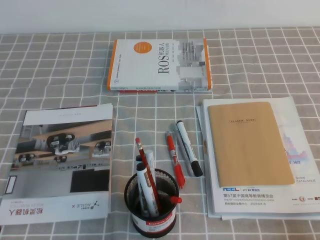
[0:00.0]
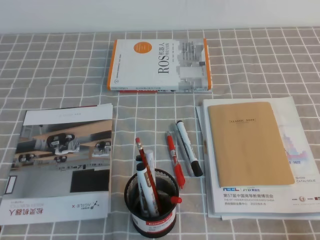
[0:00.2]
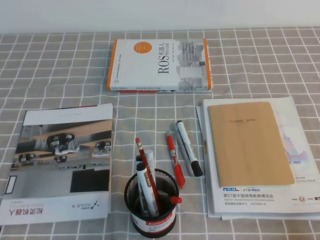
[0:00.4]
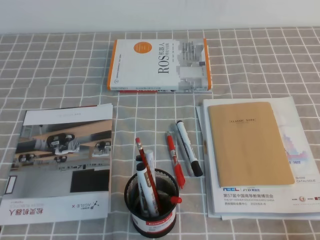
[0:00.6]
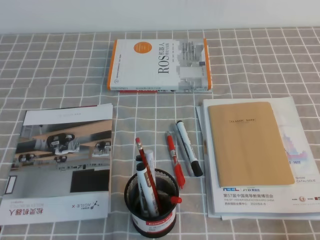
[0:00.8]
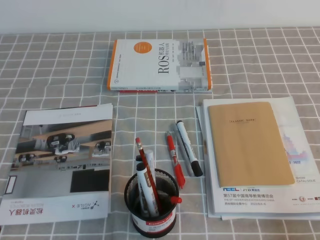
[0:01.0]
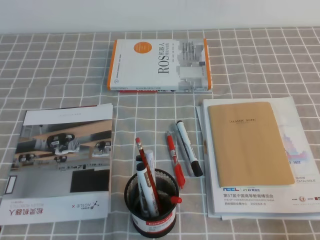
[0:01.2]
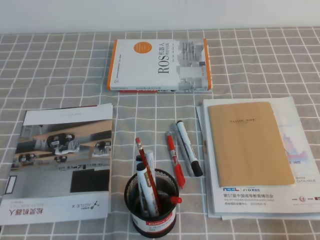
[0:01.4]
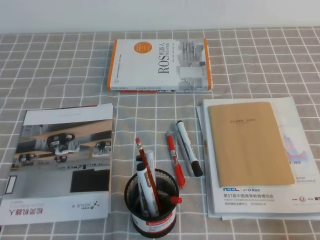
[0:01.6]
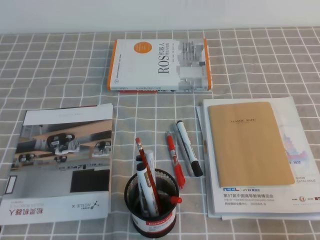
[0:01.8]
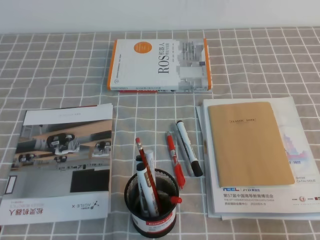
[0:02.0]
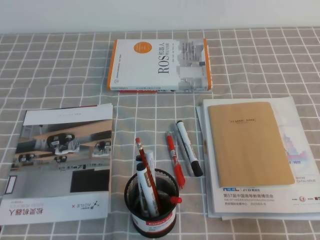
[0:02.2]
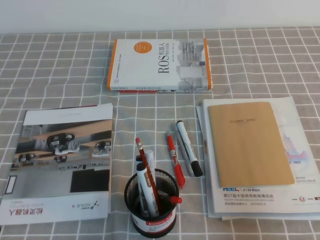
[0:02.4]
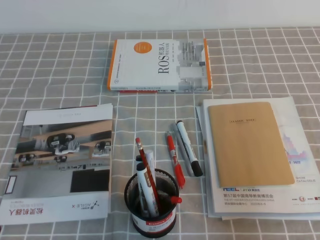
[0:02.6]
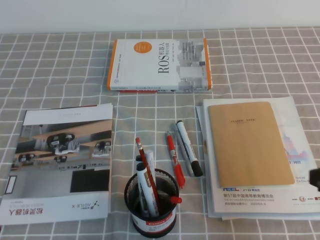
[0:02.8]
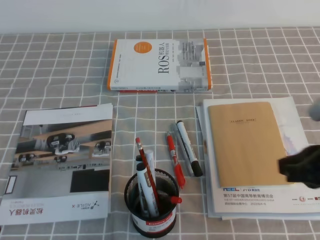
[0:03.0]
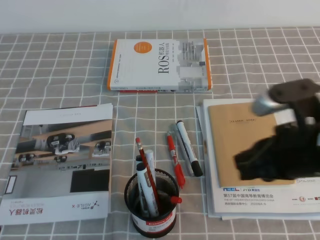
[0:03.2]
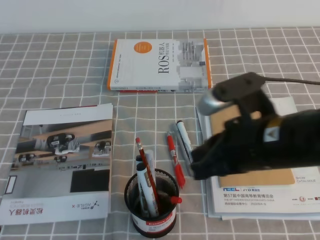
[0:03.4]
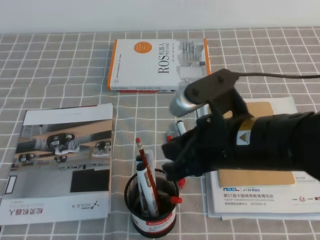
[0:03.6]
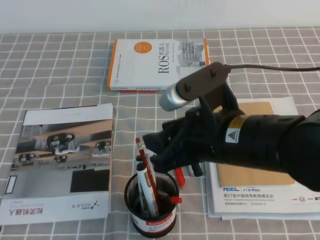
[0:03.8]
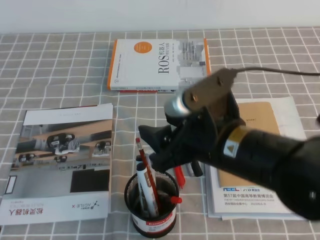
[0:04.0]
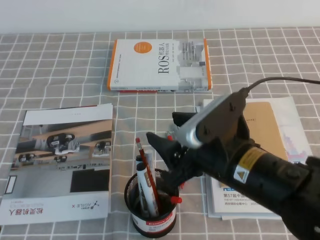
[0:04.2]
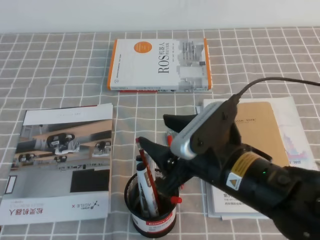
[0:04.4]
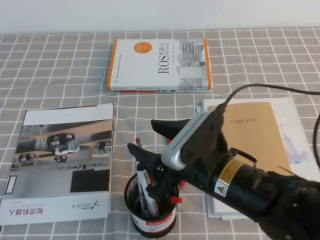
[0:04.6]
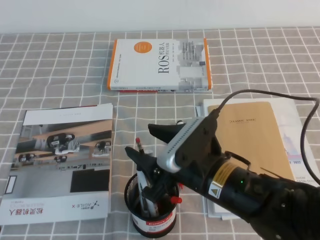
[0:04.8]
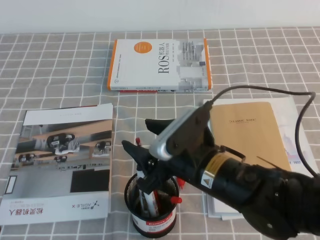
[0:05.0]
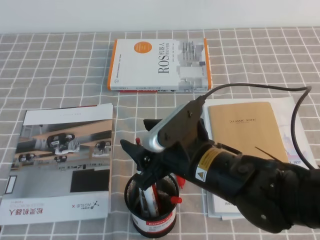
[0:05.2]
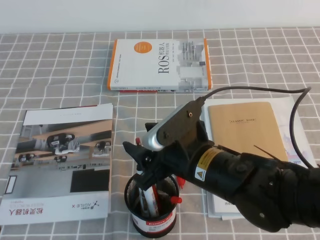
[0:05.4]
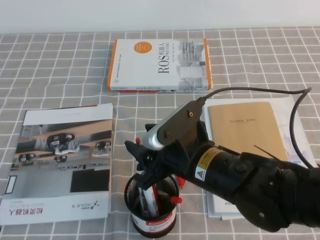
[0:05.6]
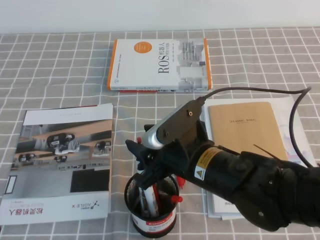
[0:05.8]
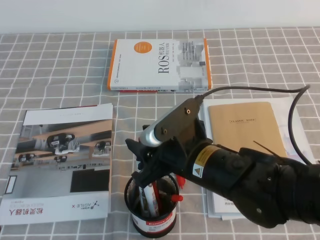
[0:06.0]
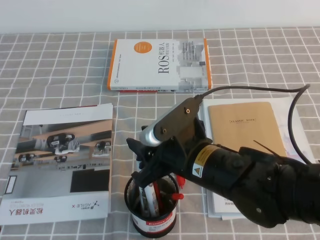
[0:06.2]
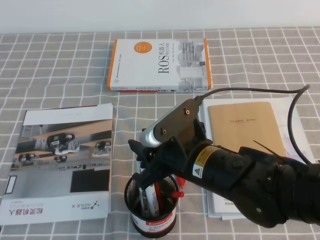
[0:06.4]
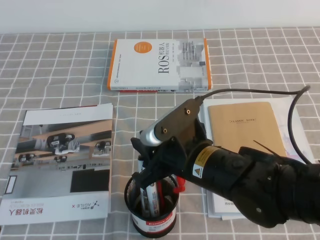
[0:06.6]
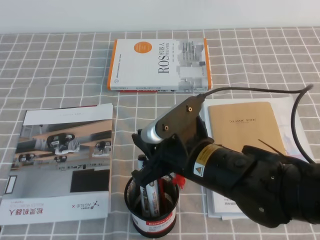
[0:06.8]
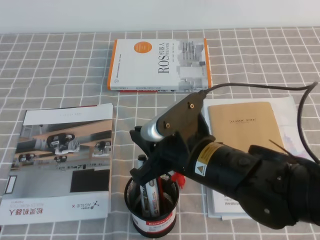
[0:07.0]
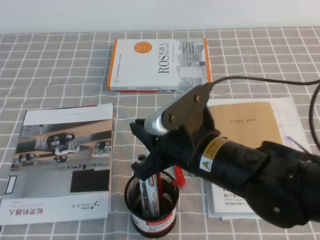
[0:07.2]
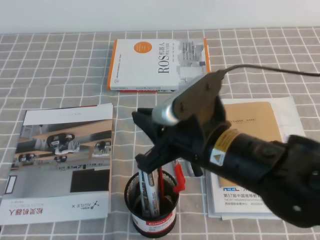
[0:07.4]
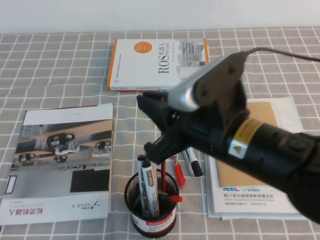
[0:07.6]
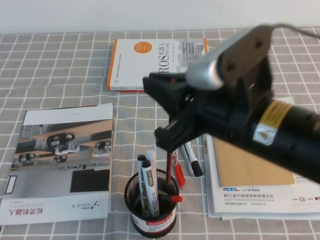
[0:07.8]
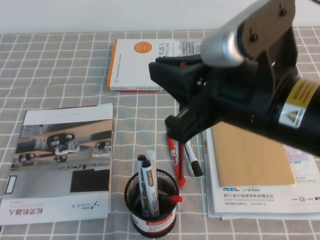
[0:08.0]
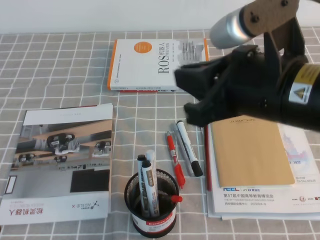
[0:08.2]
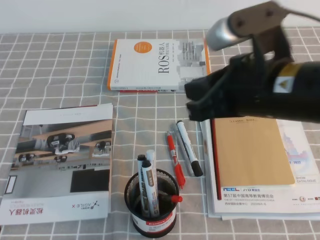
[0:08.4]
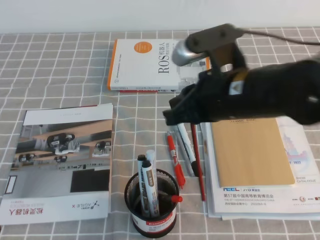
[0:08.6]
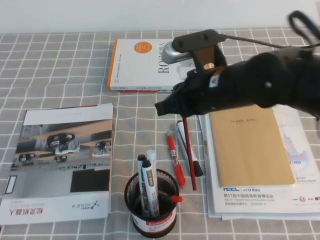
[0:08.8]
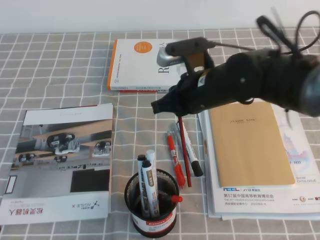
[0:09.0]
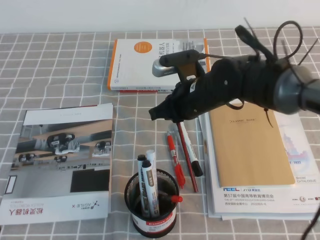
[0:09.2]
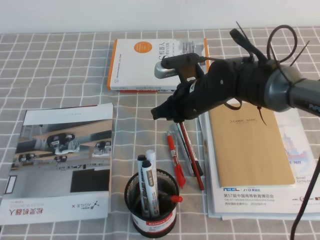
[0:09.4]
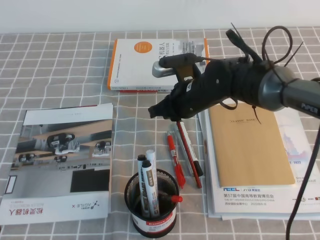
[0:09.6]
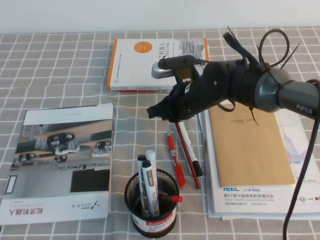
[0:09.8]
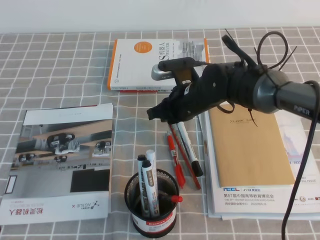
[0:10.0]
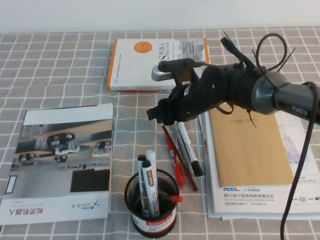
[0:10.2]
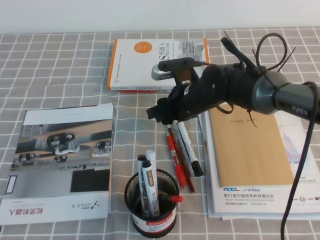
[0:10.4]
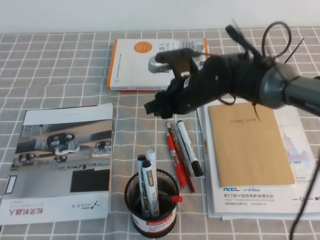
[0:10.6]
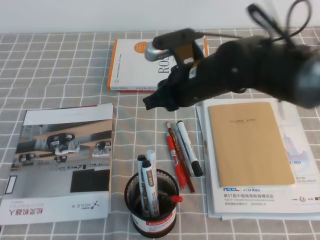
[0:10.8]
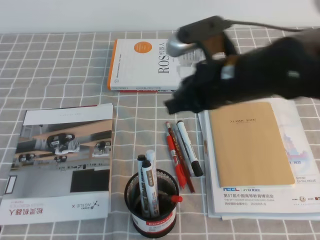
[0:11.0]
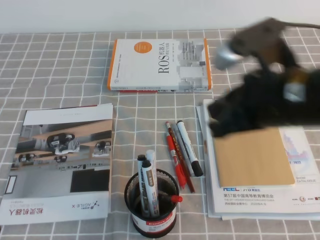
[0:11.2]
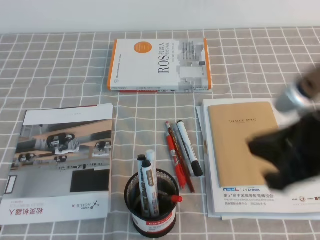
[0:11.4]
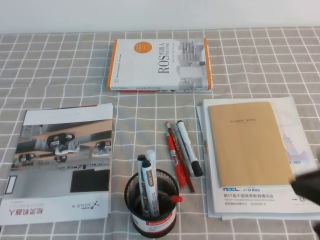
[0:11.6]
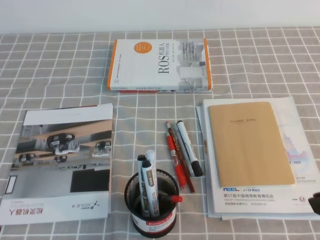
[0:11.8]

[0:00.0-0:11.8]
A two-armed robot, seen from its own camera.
Step, 0:00.0 to 0:11.8: Pick up the pen from the pen holder.
0:01.4 to 0:03.0: The right gripper shifts roughly 15 cm forward, upward and to the left.
0:03.0 to 0:04.4: The right gripper heads to the left, covering some 15 cm, and opens.
0:04.4 to 0:06.0: The grippers stay close to where they were, moving slightly.
0:06.0 to 0:07.4: The right gripper travels upward by roughly 5 cm, and closes its fingers.
0:07.4 to 0:08.8: The right gripper is displaced forward by about 10 cm.
0:08.8 to 0:10.4: The right gripper moves downward and forward, some 15 cm, and opens.
0:10.4 to 0:11.8: The right gripper goes about 35 cm backward, to the right and upward, and closes.
